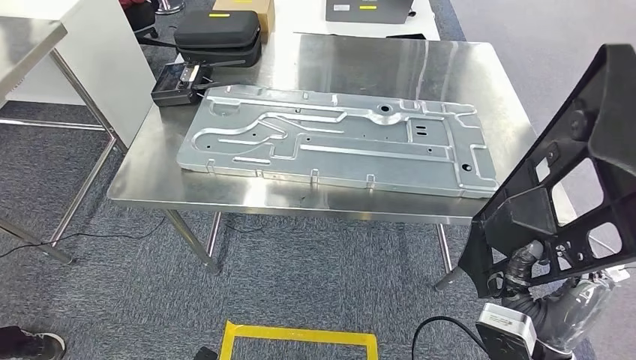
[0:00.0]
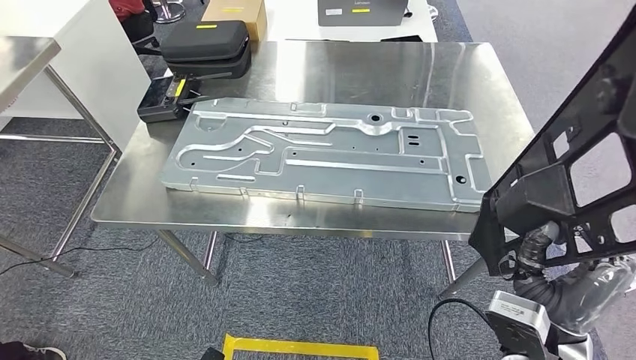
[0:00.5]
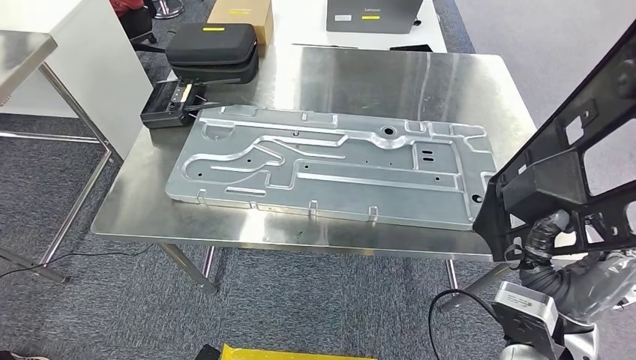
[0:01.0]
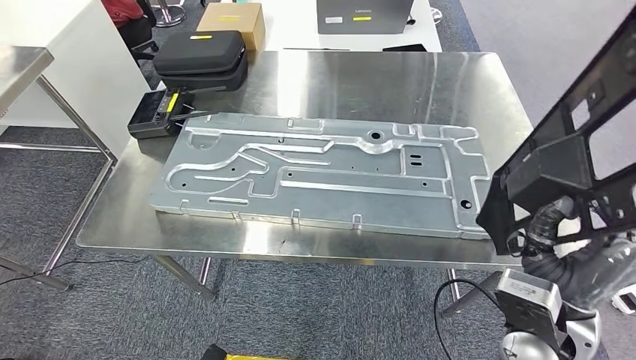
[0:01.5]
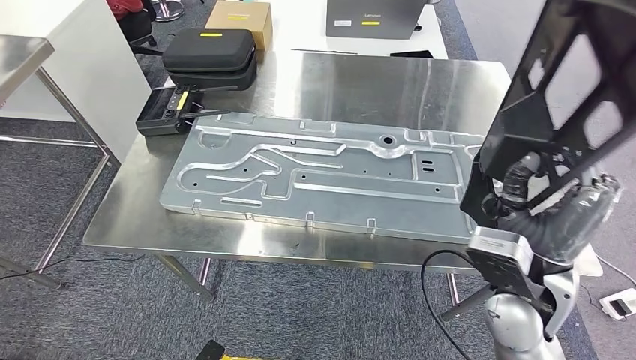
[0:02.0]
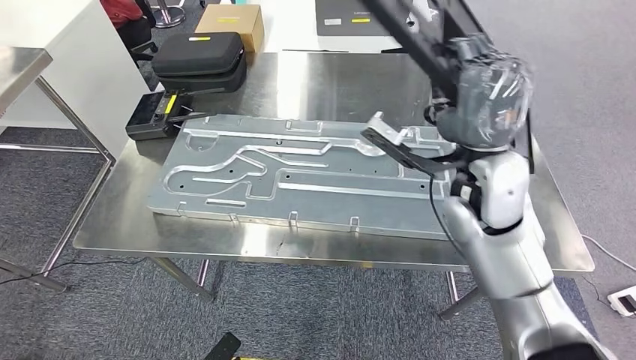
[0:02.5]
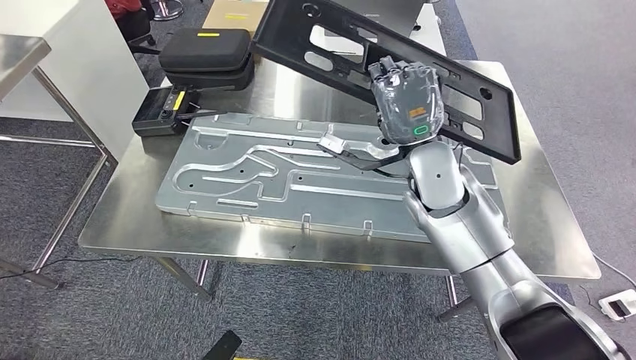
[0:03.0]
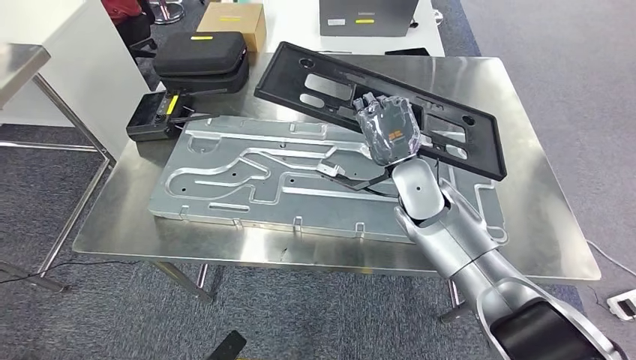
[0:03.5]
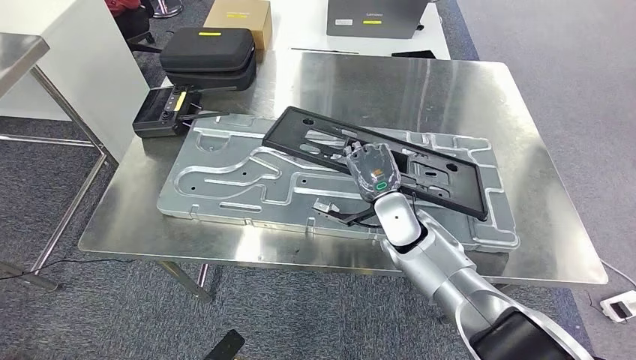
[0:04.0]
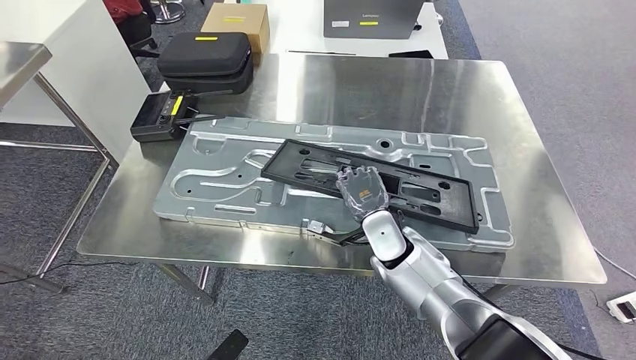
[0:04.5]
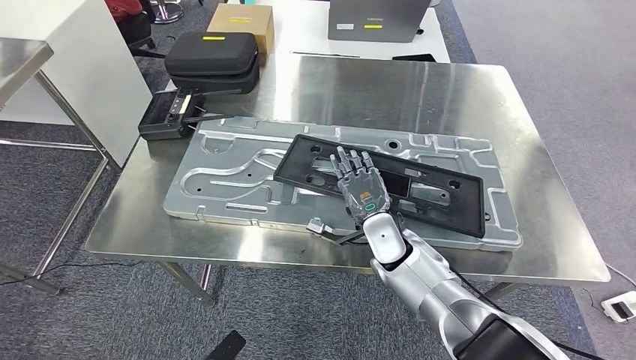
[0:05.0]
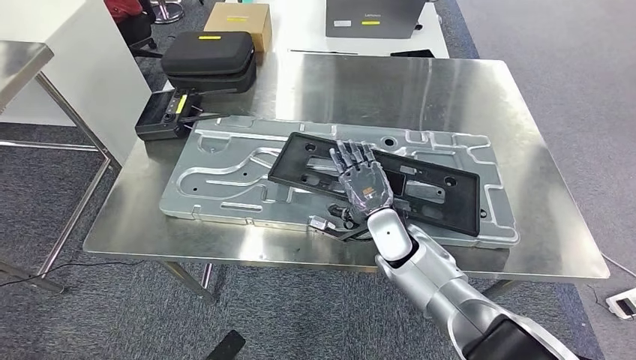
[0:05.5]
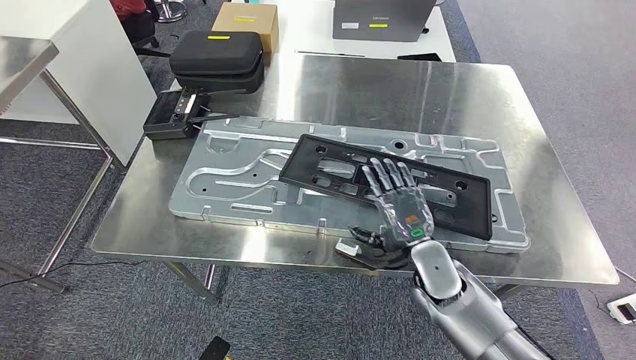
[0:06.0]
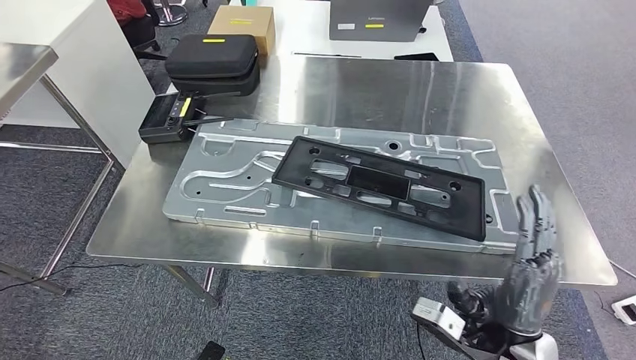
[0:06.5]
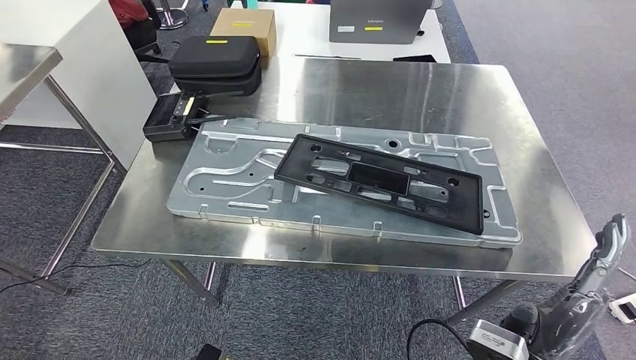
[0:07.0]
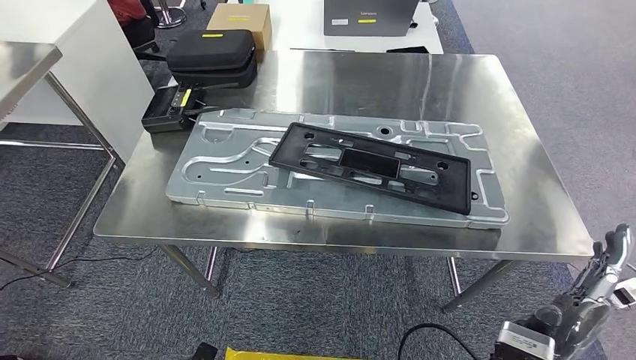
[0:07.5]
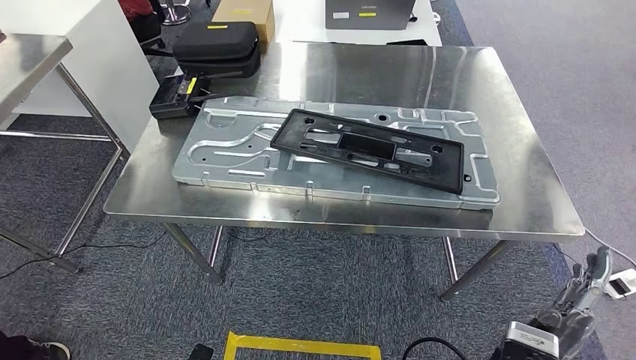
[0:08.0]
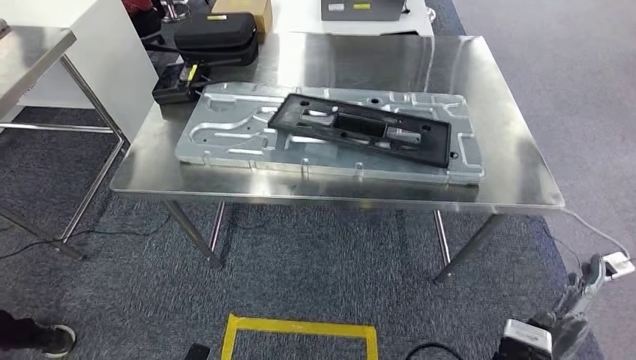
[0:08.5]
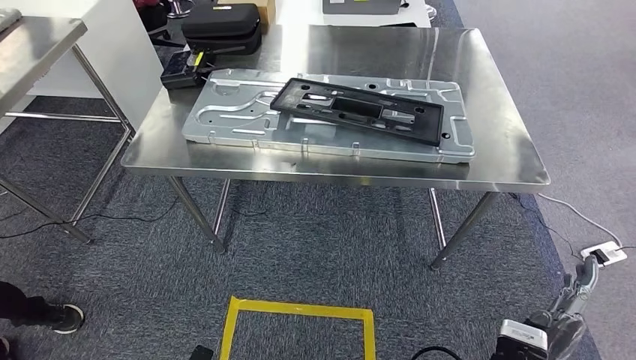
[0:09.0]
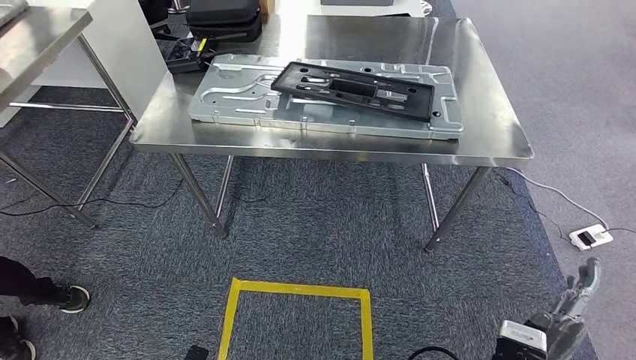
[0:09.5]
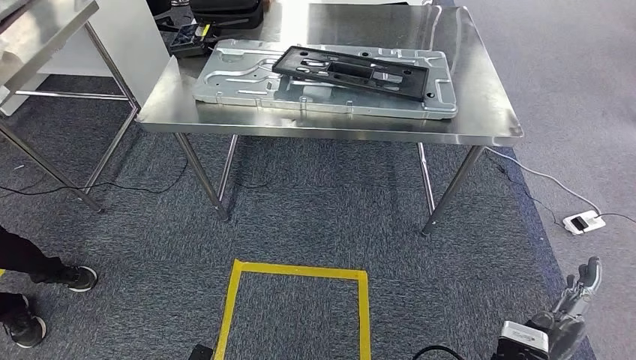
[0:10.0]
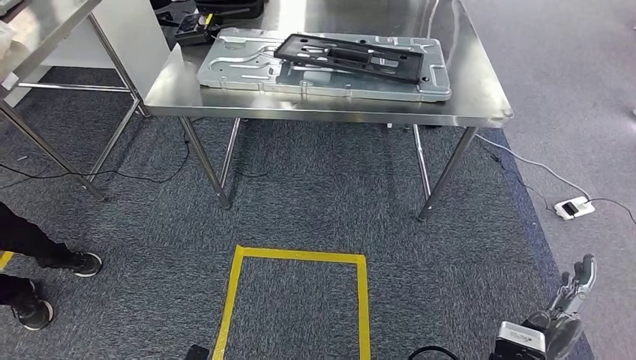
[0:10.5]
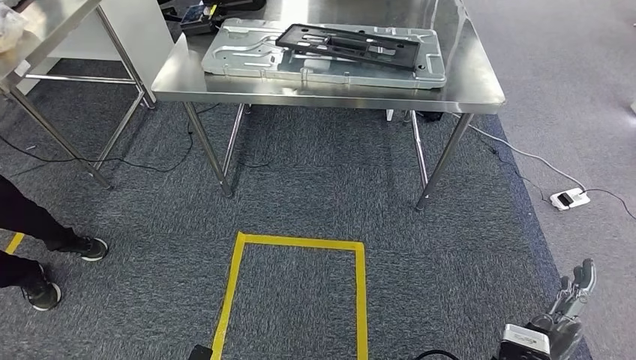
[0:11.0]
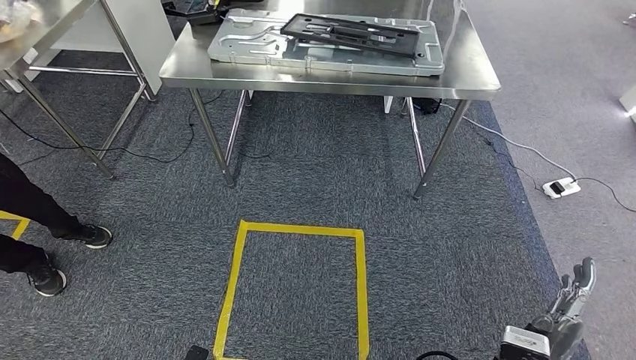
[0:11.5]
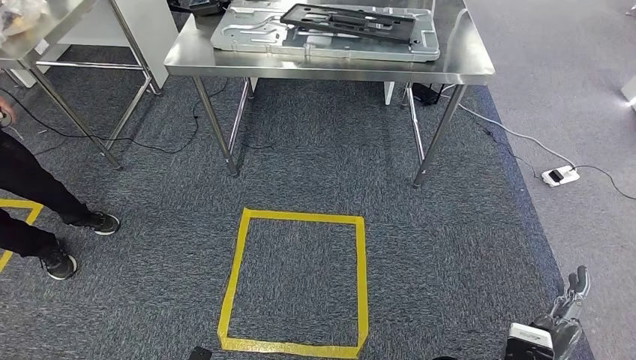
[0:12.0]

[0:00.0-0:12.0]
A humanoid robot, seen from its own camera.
Step, 0:00.0 to 0:05.5: Insert the large material into the corresponding slot on the workbench.

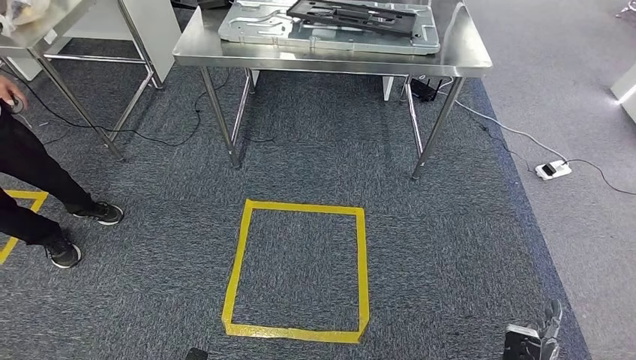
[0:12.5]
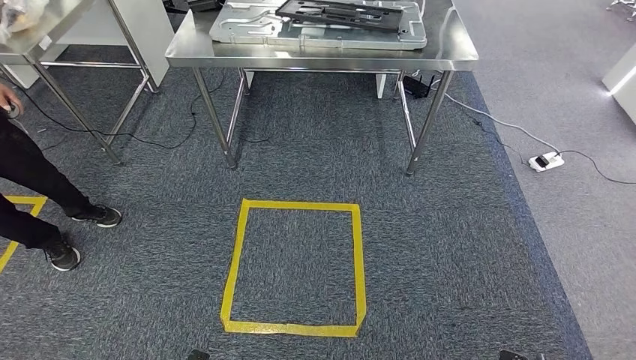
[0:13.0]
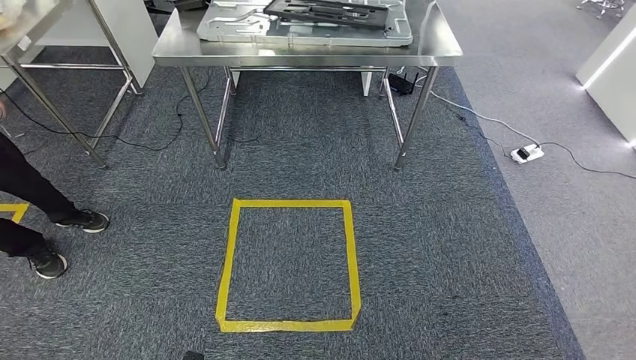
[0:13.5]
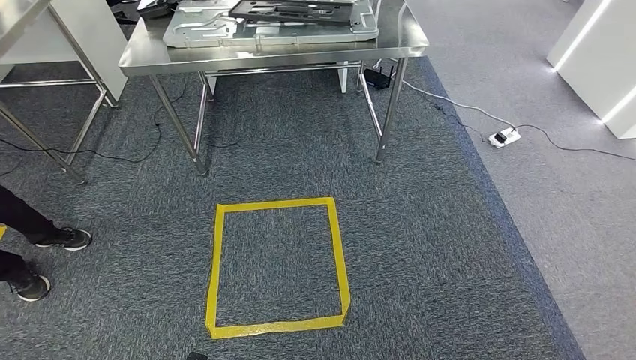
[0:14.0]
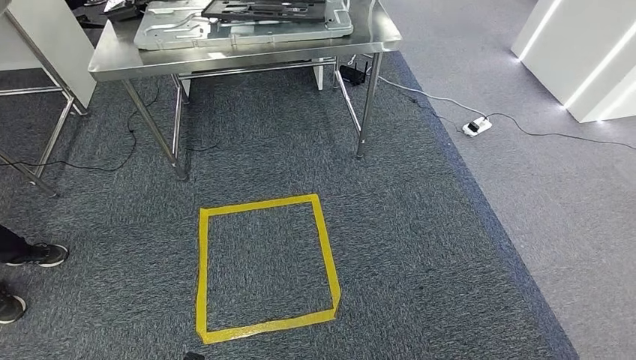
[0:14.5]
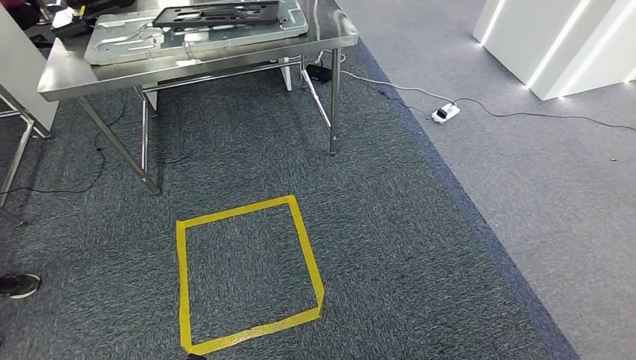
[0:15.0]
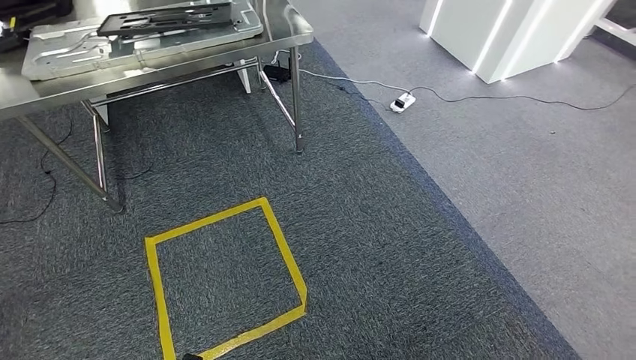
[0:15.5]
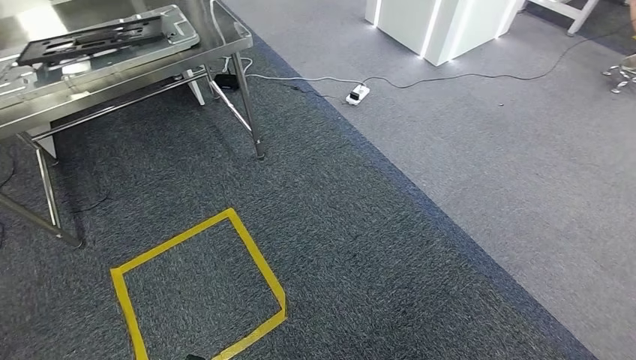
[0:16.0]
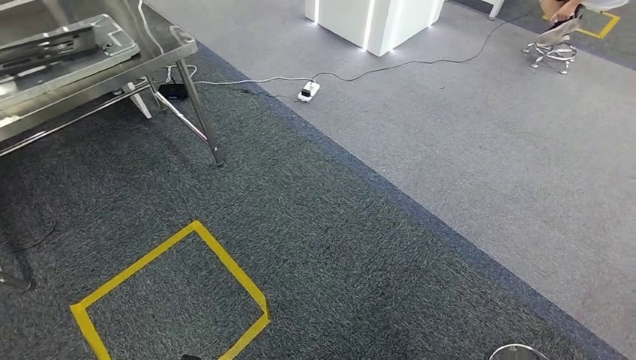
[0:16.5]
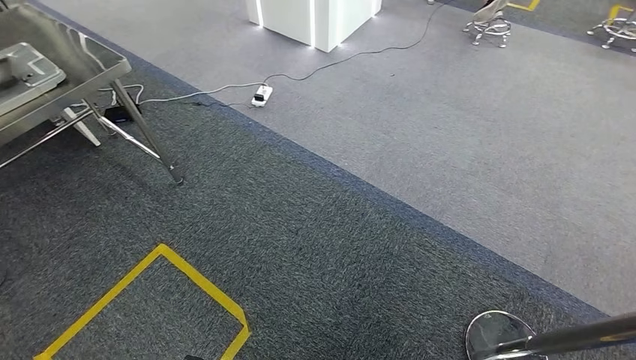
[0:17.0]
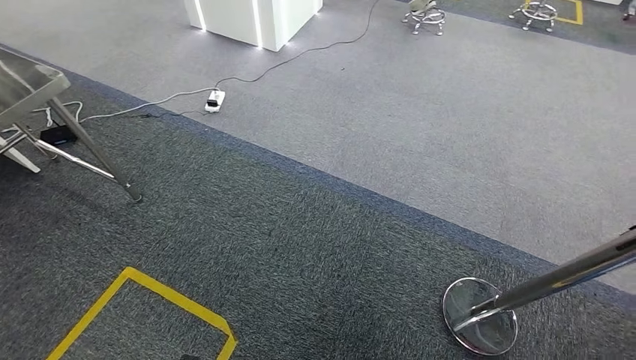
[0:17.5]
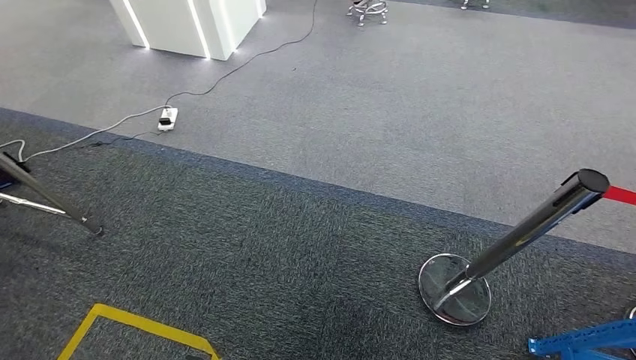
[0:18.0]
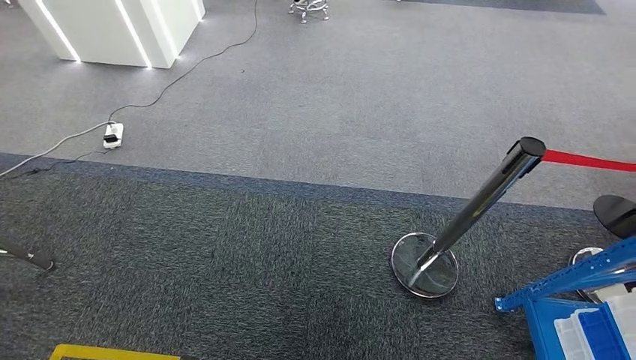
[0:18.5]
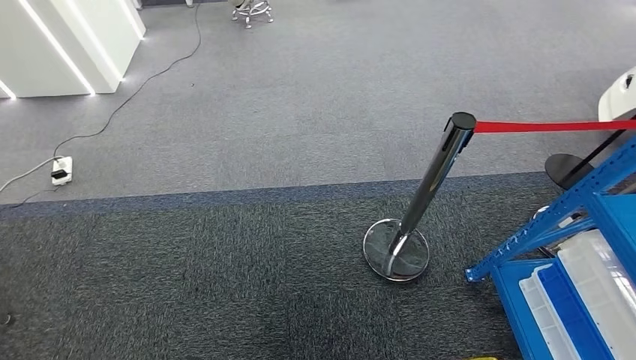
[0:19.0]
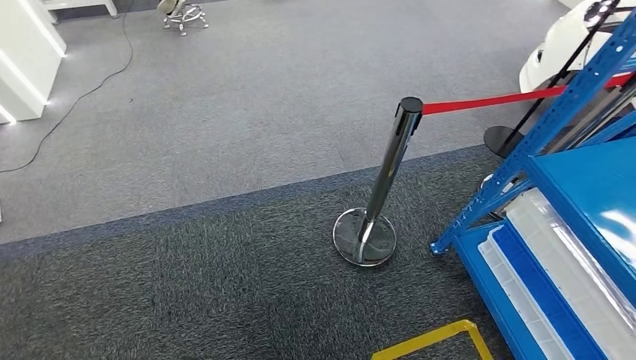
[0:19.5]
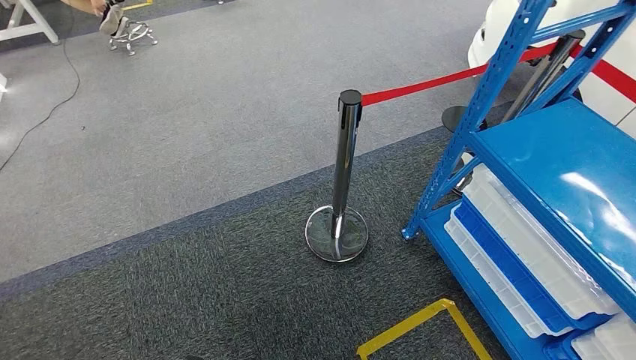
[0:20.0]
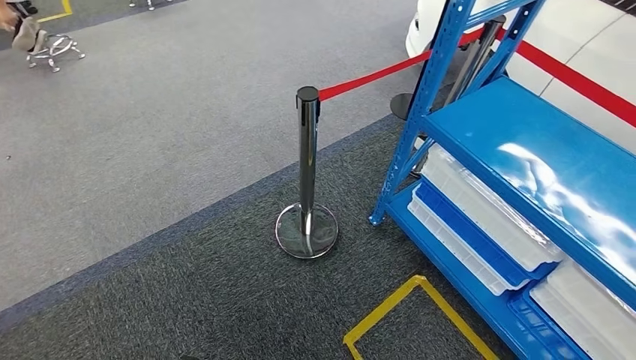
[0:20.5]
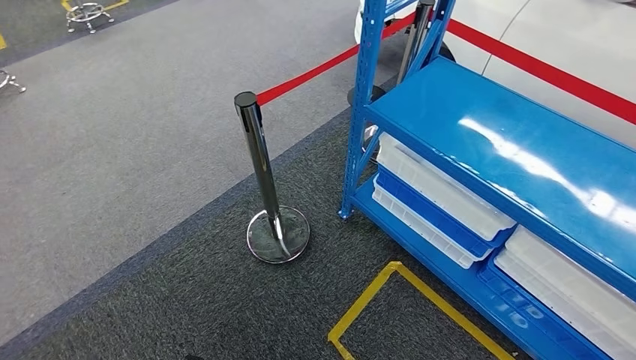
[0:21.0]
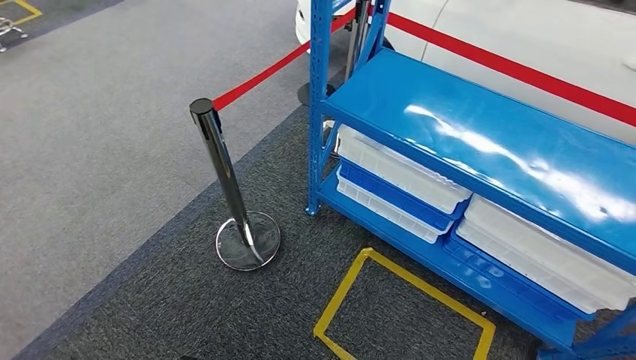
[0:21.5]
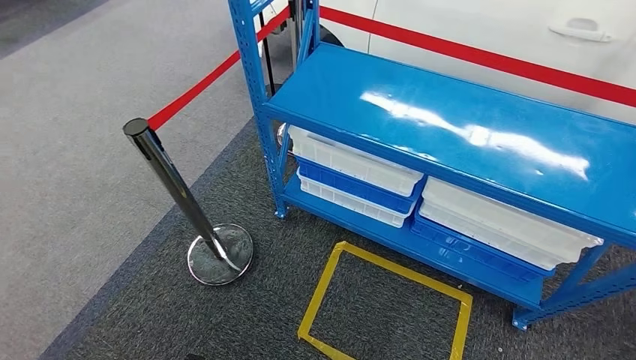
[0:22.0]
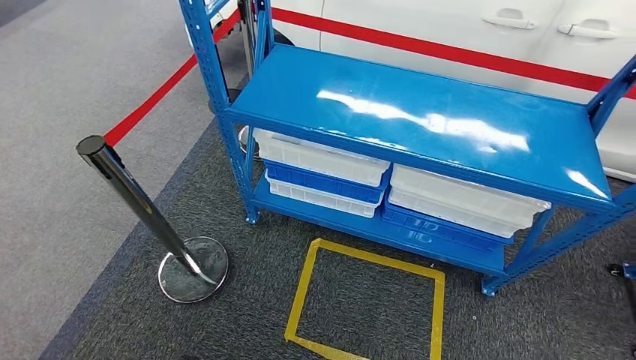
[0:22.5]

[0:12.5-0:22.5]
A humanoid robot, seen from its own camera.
Step, 0:12.5 to 0:22.5: Move to the initial position of the shelf.
